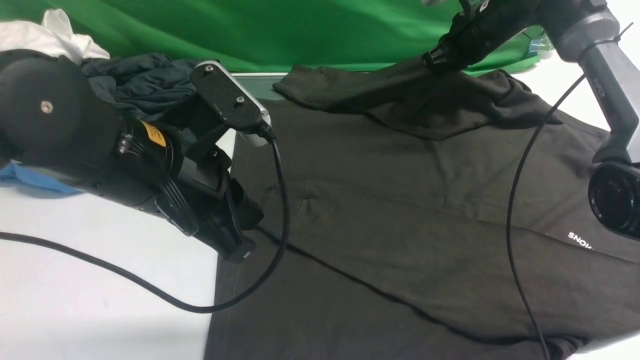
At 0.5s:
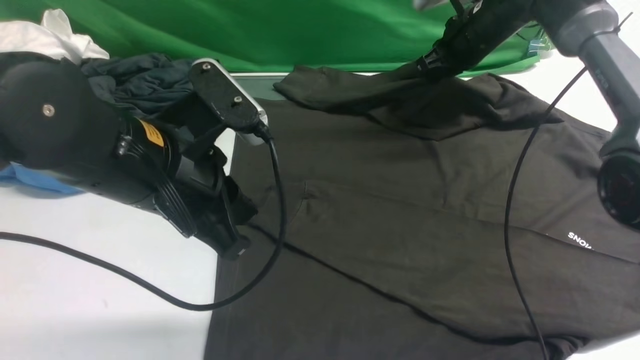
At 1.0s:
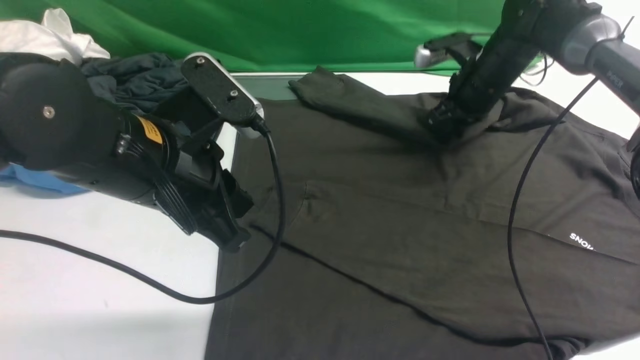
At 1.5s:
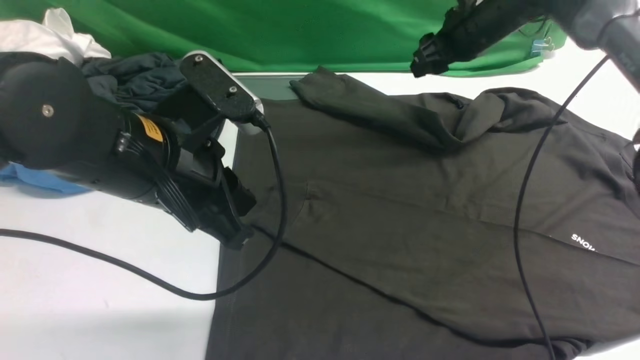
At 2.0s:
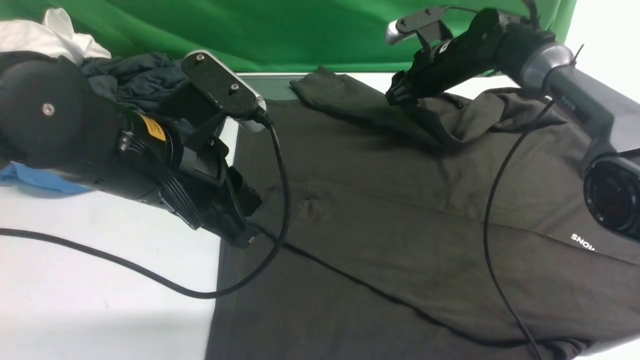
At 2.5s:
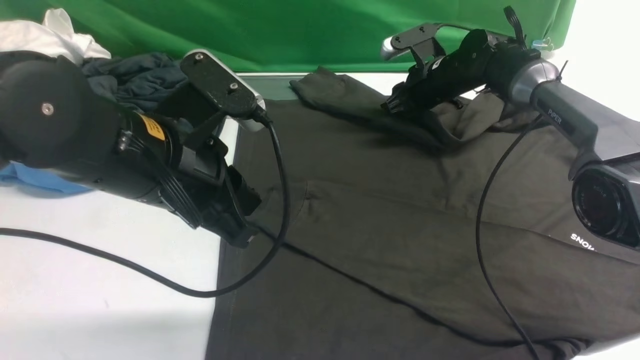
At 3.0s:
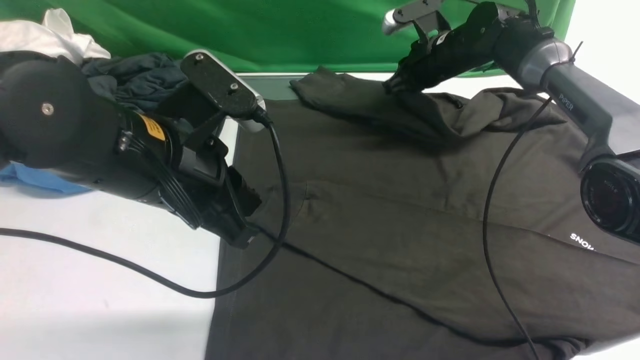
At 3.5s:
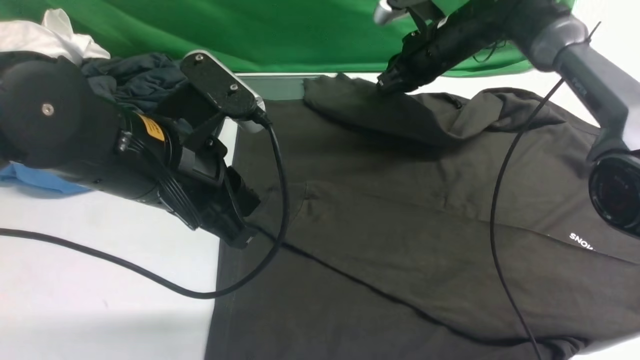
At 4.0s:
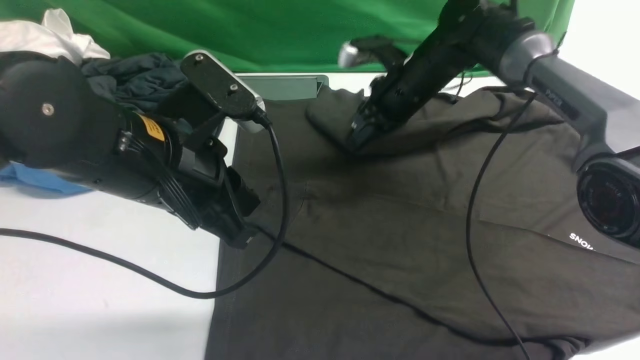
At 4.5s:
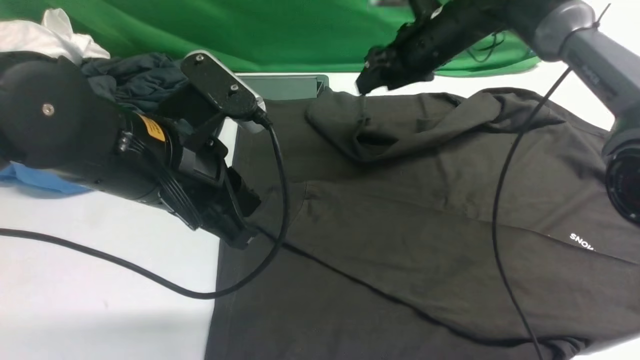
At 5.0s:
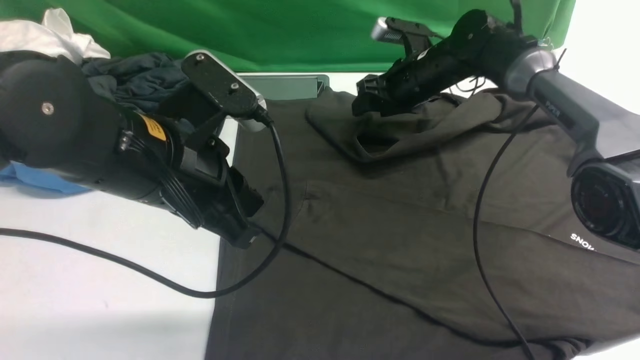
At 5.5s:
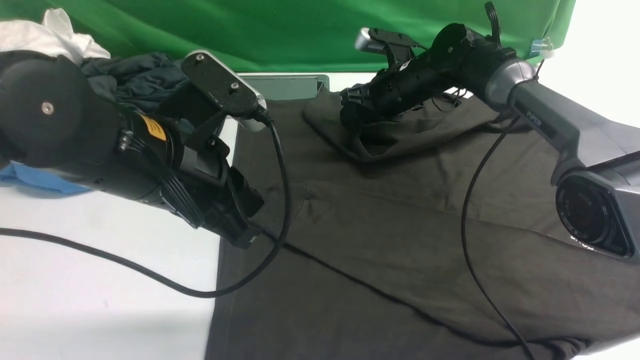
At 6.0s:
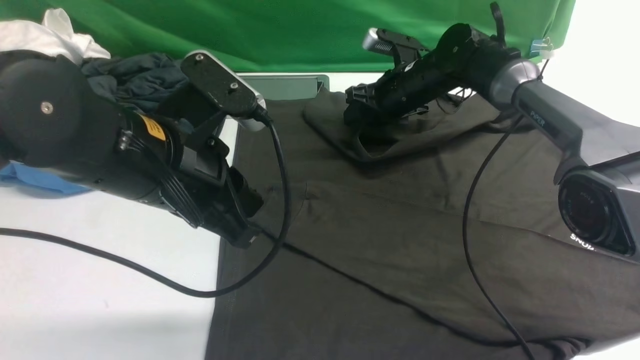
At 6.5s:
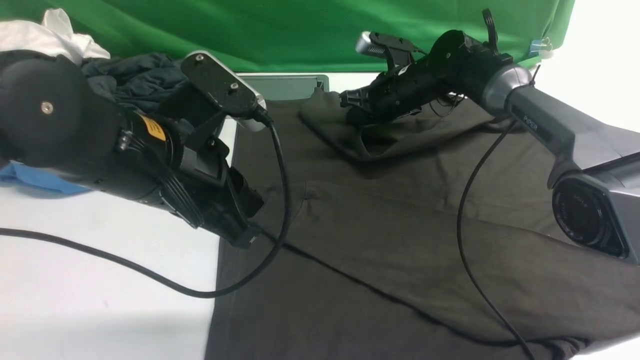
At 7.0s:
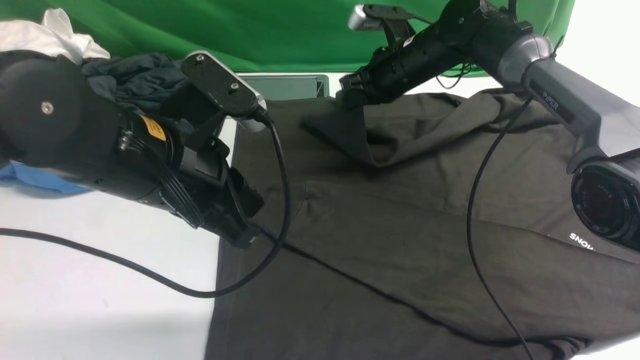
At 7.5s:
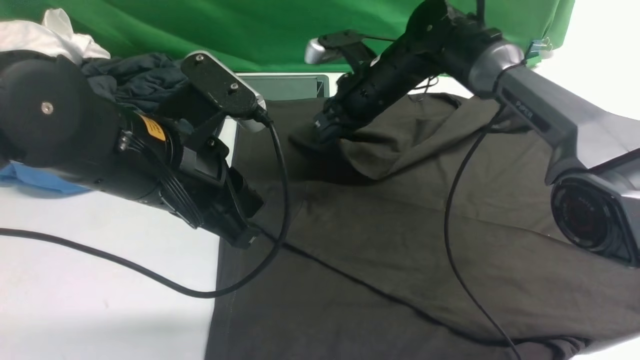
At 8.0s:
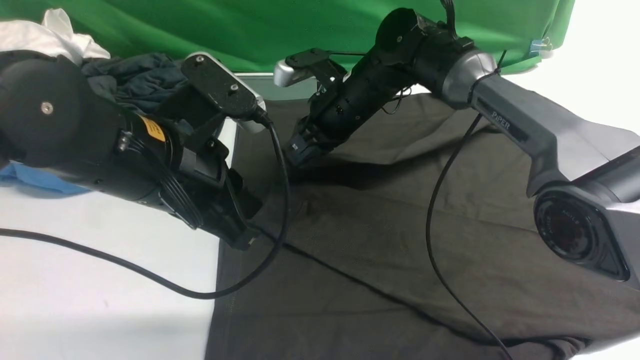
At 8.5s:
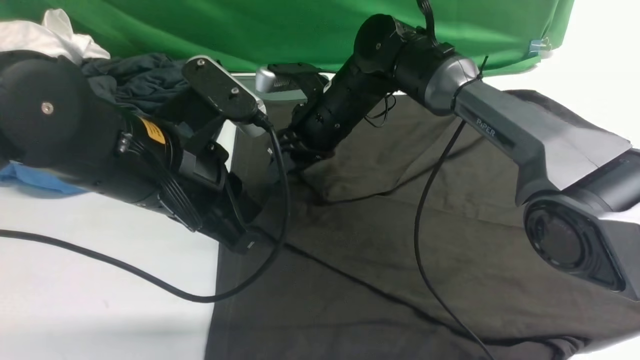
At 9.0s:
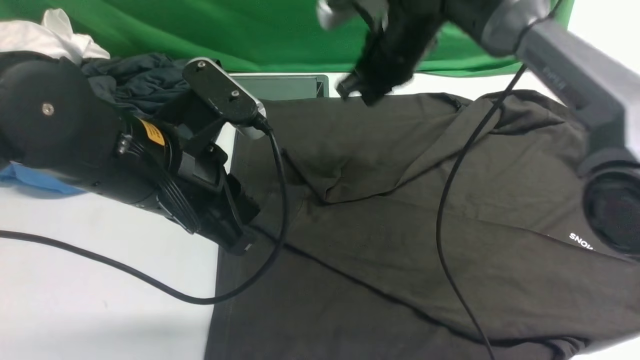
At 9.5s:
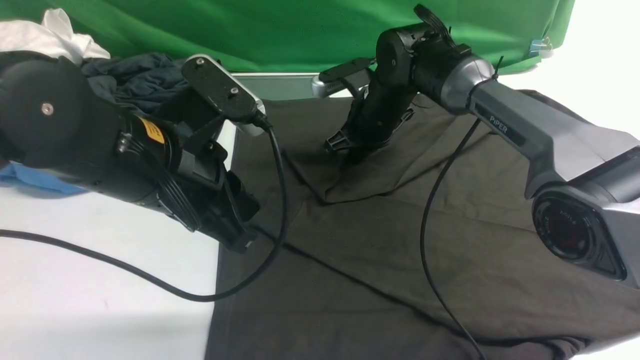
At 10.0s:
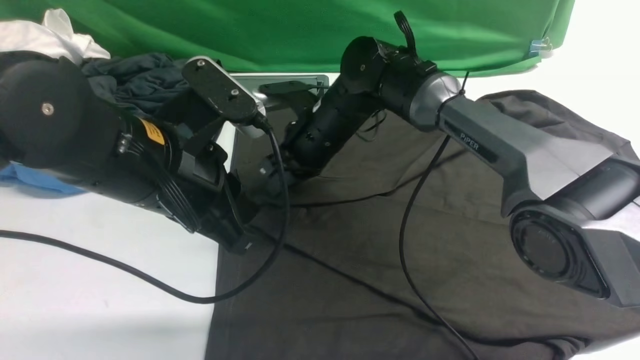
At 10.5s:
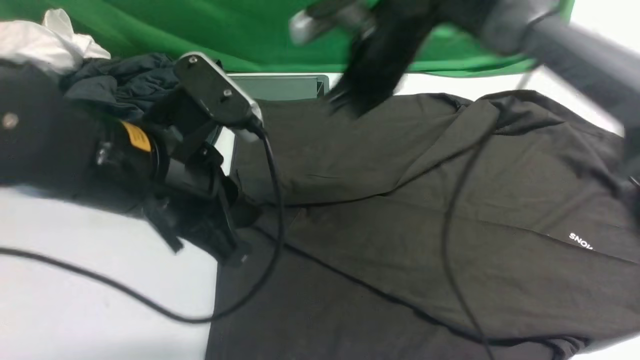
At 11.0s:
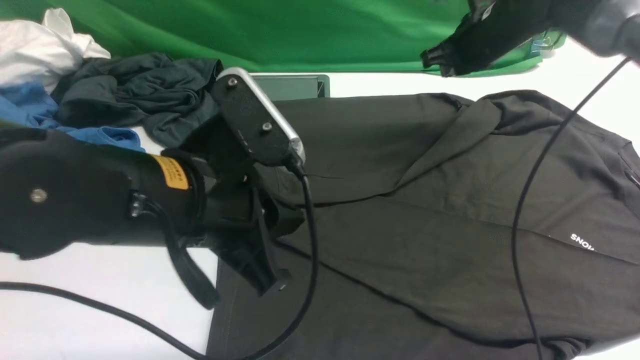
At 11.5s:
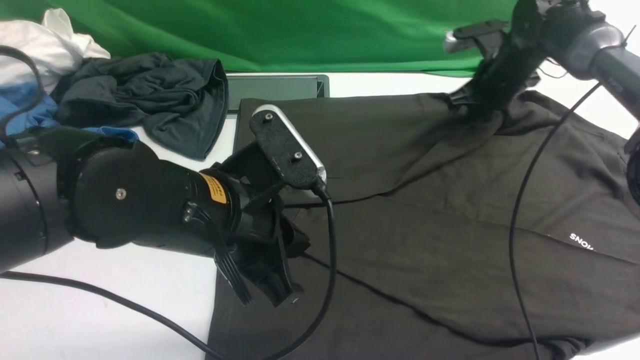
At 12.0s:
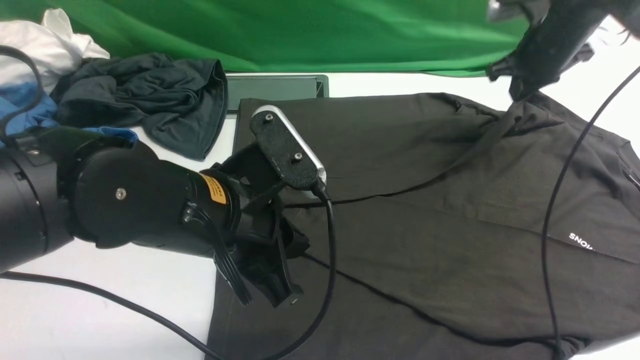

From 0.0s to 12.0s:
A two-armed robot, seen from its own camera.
From 0.0s to 2.0s: The right gripper is displaced downward by roughly 5 cm, and opens.
From 2.0s to 4.0s: The right gripper shifts roughly 10 cm backward and to the left, and closes up.
From 4.0s to 6.0s: The right gripper ends up some 5 cm from where it was, and opens.
From 6.0s to 8.0s: The right gripper goes some 10 cm to the left and backward, and closes.
From 8.0s to 10.0s: The right gripper opens, then closes again.
From 10.0s to 12.0s: The left gripper ends up approximately 5 cm from where it was, while the right gripper shifts roughly 30 cm to the right.

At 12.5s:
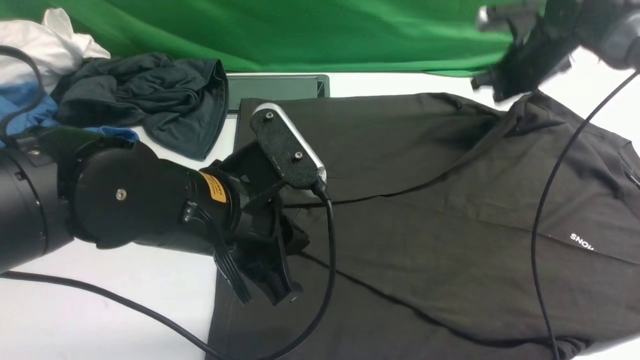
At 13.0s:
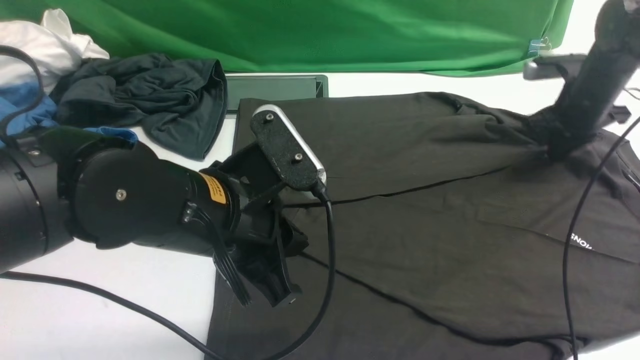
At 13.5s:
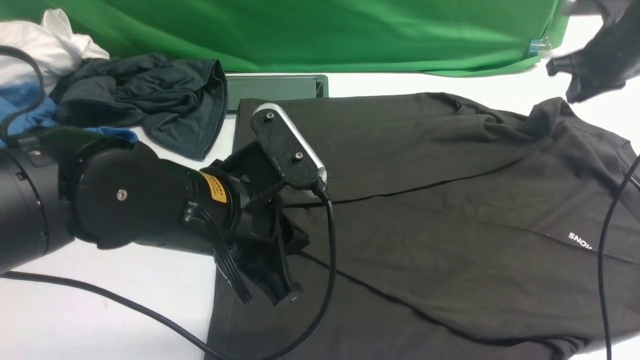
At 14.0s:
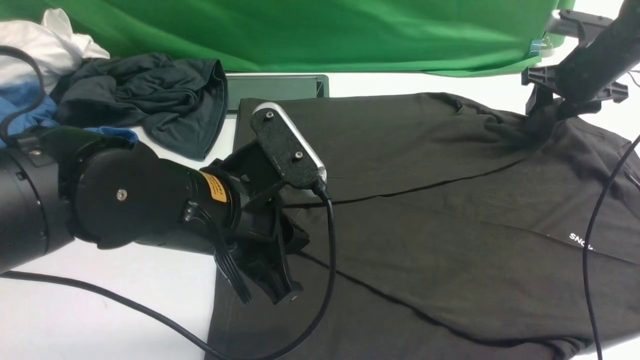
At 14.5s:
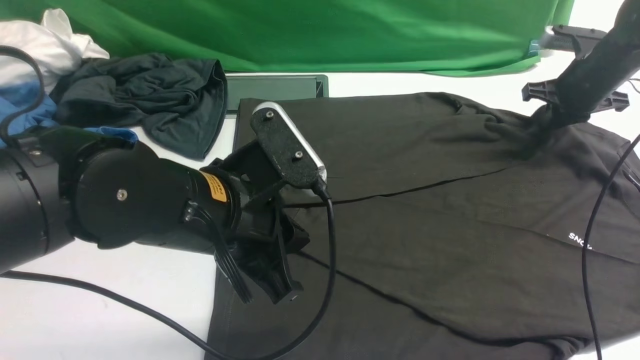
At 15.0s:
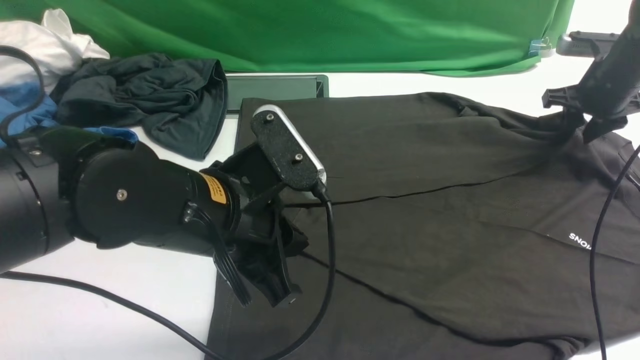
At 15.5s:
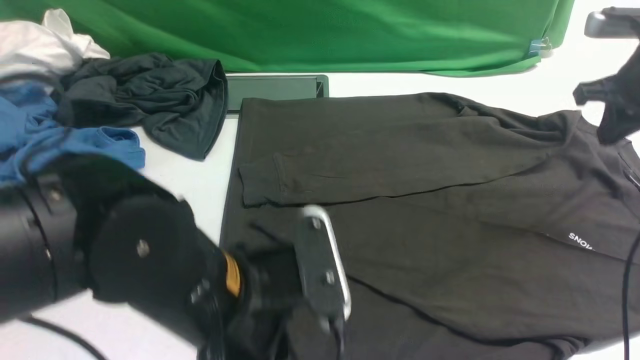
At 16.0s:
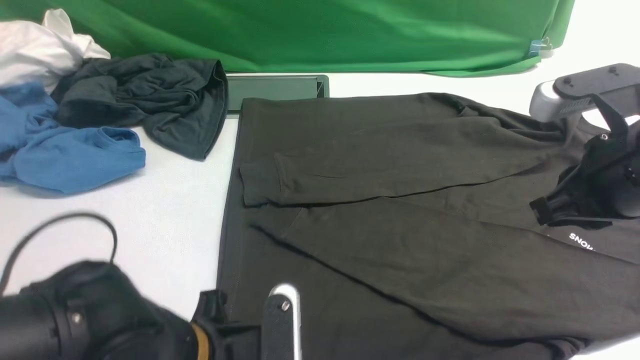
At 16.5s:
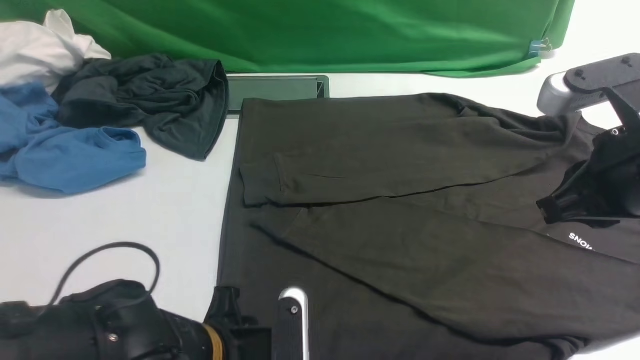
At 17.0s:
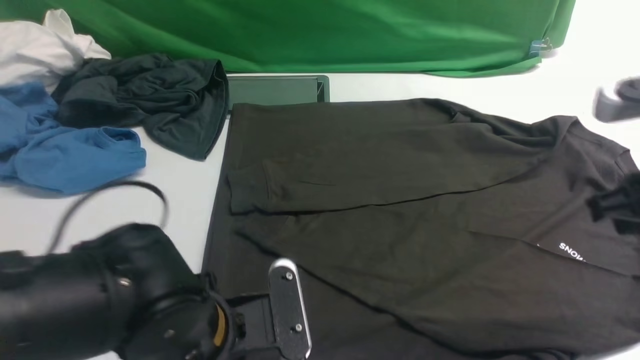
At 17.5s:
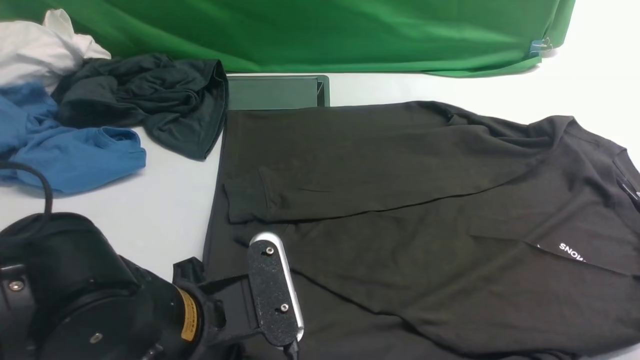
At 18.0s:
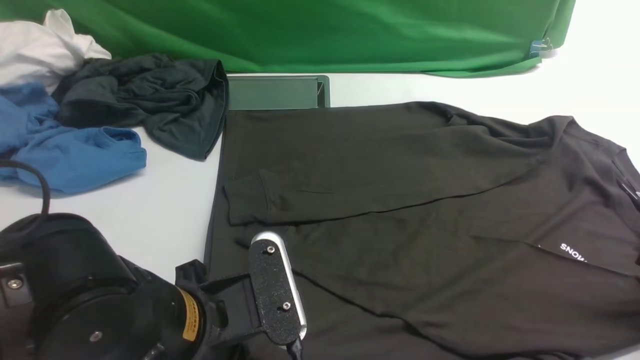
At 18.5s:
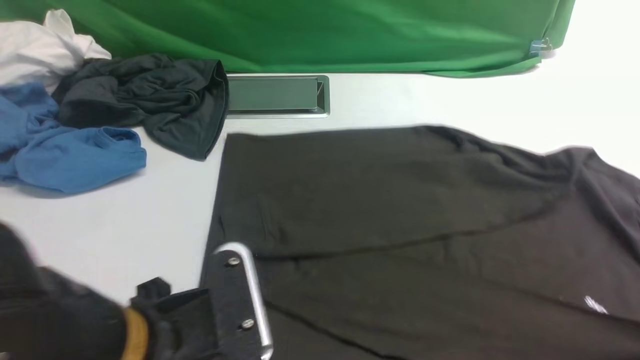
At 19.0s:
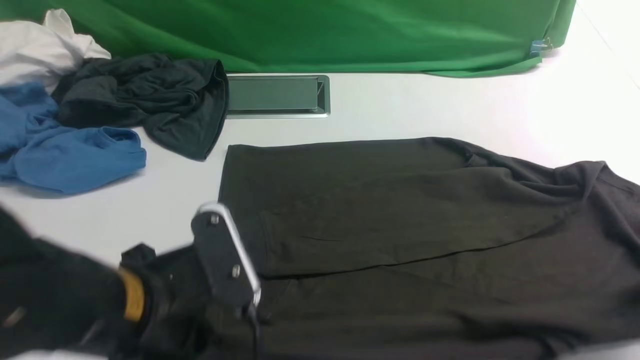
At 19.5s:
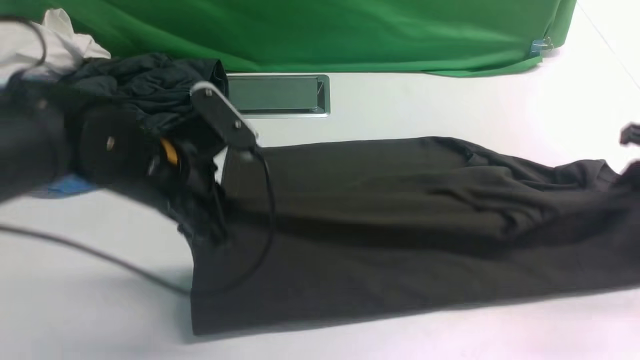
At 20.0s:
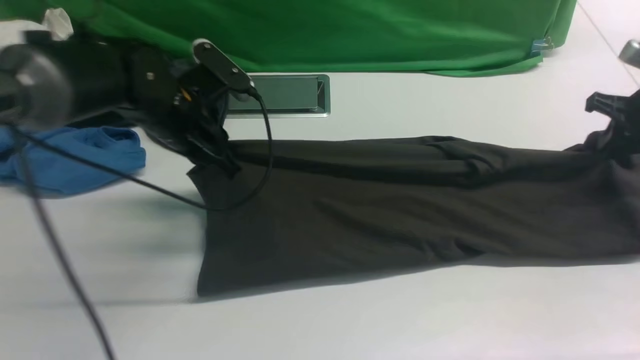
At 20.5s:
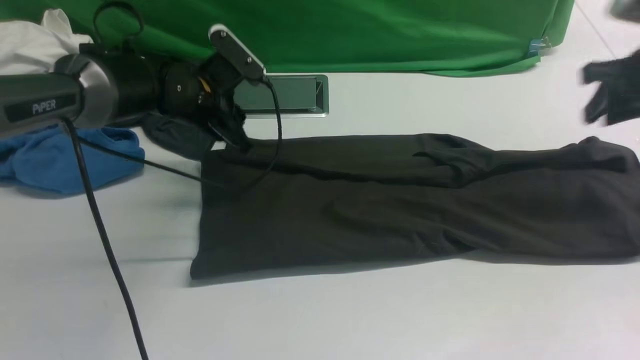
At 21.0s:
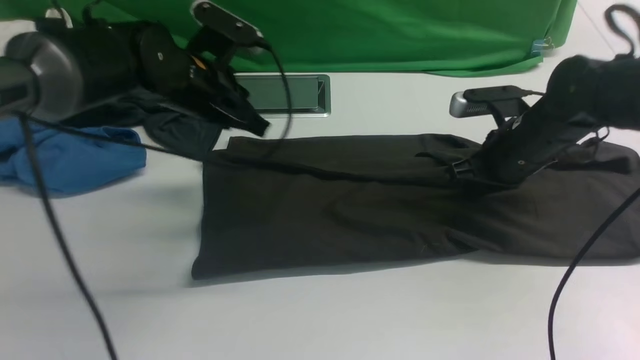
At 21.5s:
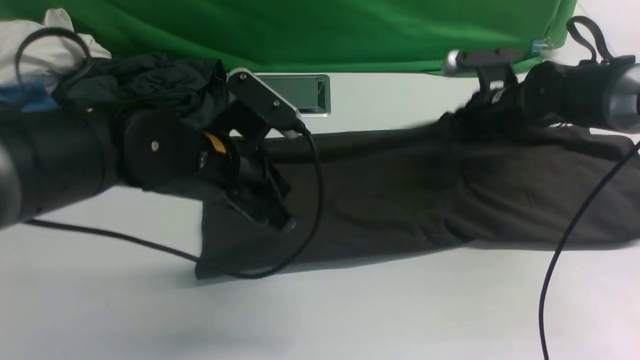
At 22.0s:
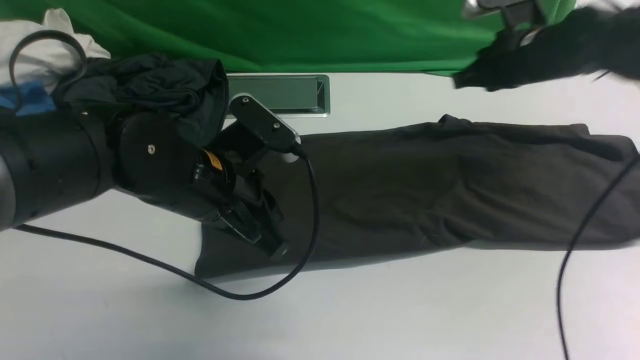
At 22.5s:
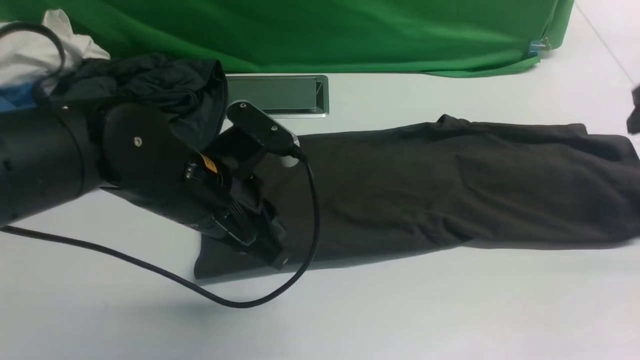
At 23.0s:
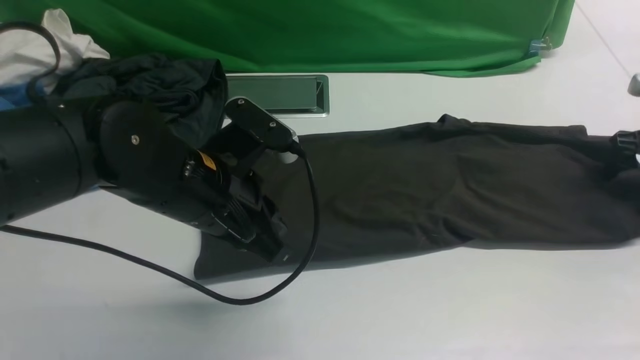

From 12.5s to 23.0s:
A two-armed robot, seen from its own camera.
Step, from 12.5s to 15.5s: use the left arm to drag and drop the cuff onto the cuff closest to the left arm.
Step, from 16.0s to 19.0s: use both arms simultaneously to clamp the lower edge of the clothing fabric.
Step, from 19.5s to 22.0s: use both arms to drag the lower edge of the fabric forward and fold it over the upper edge.
From 12.5s to 14.5s: The right gripper shifts approximately 5 cm to the right, and opens and closes again.
From 14.5s to 16.5s: The left gripper shifts some 15 cm downward and backward, and opens. The right gripper heads backward, upward and to the left, covering approximately 30 cm, and opens, then closes once more.
From 16.5s to 19.0s: The right gripper heads to the right and downward, covering about 15 cm, and opens, then closes again. Meanwhile the left gripper moves upward, approximately 10 cm, and closes its fingers.
From 19.0s to 21.0s: The right gripper travels forward and to the left by approximately 20 cm; the left gripper moves forward, some 25 cm, and opens and closes again.
From 21.0s to 23.0s: The right gripper is displaced to the right by some 20 cm, and opens; the left gripper heads backward, covering some 15 cm.
